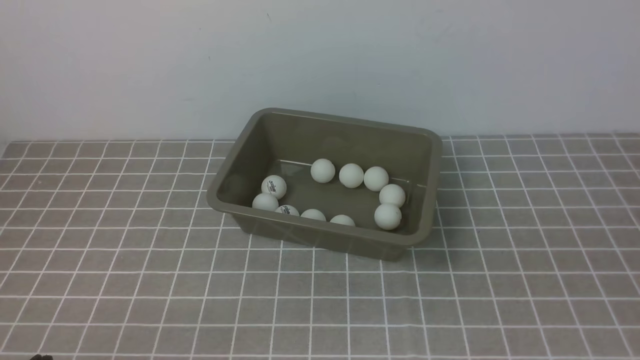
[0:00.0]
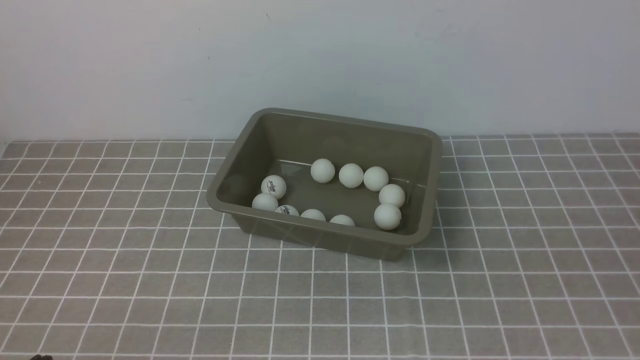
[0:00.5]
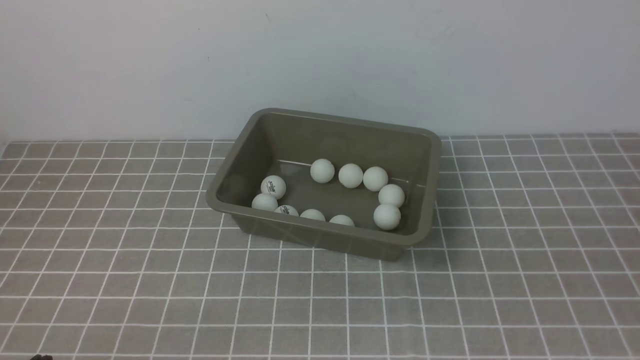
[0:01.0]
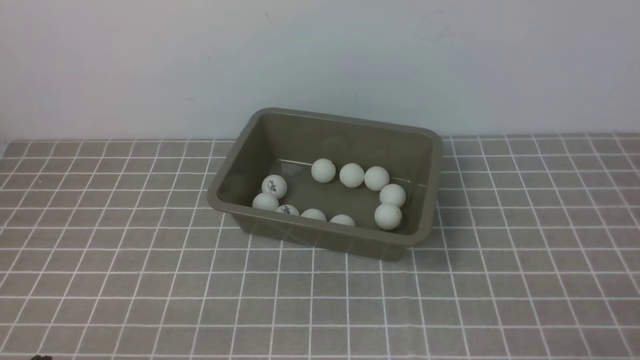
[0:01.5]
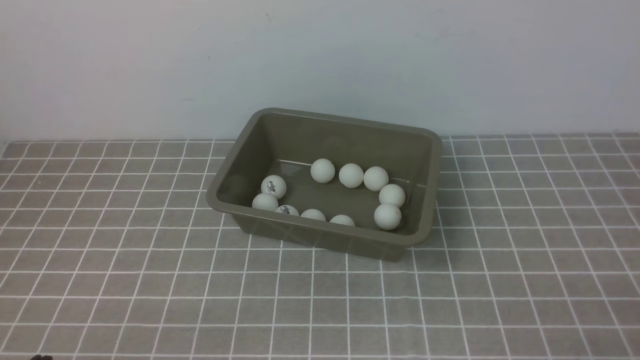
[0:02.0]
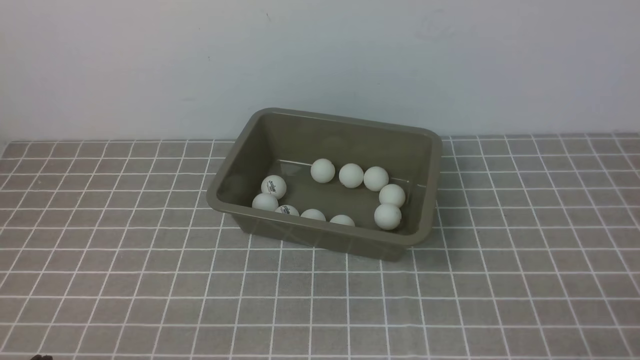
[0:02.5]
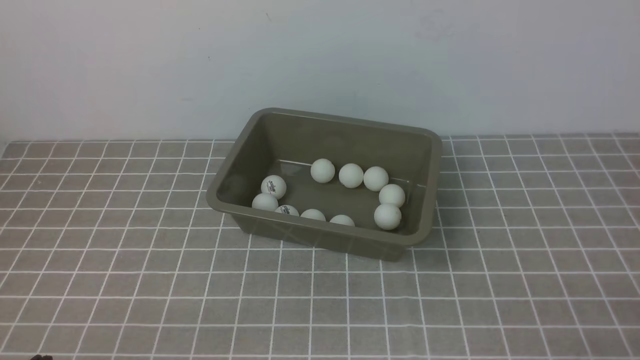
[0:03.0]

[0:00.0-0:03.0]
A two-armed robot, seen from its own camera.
0:01.5 to 0:03.0: Both grippers stay put.
